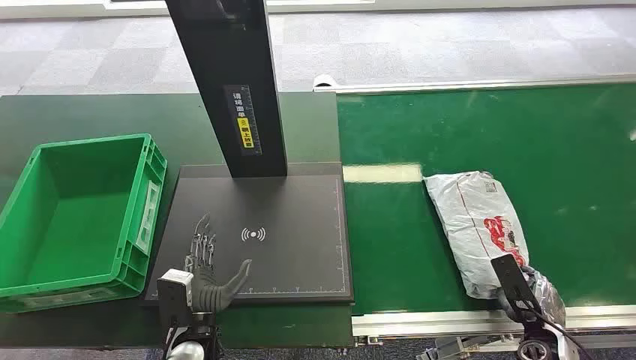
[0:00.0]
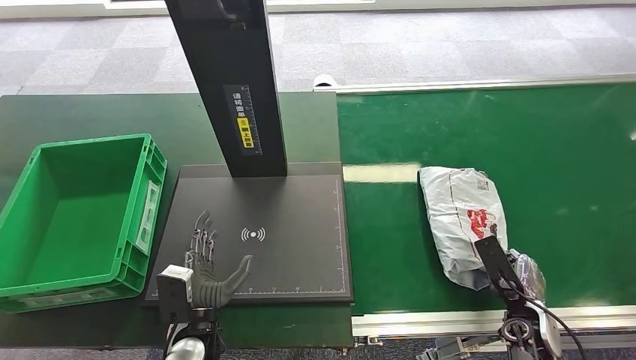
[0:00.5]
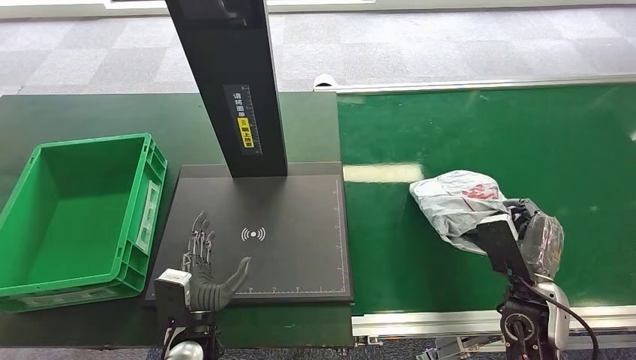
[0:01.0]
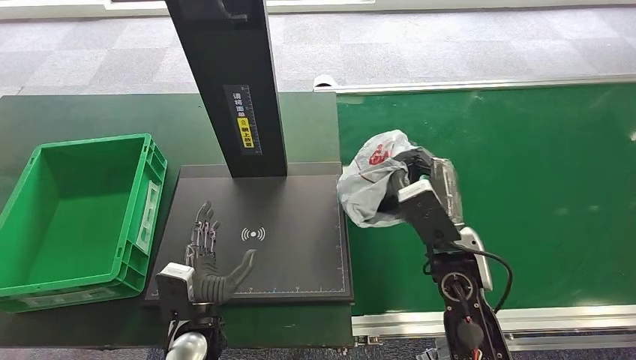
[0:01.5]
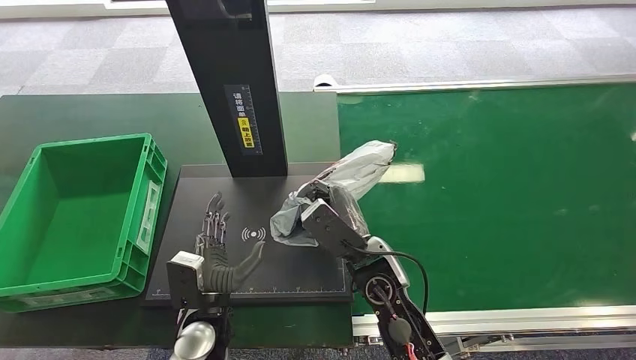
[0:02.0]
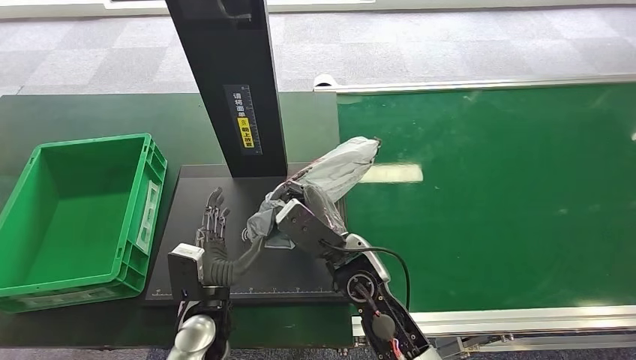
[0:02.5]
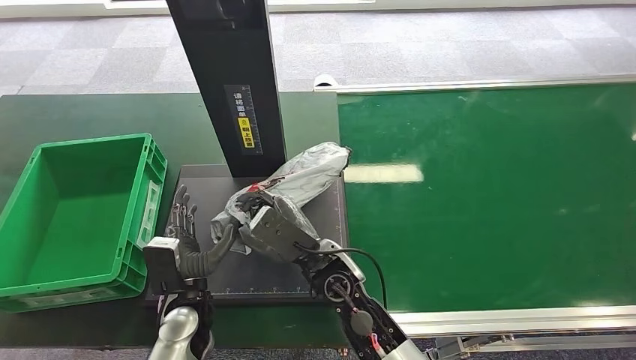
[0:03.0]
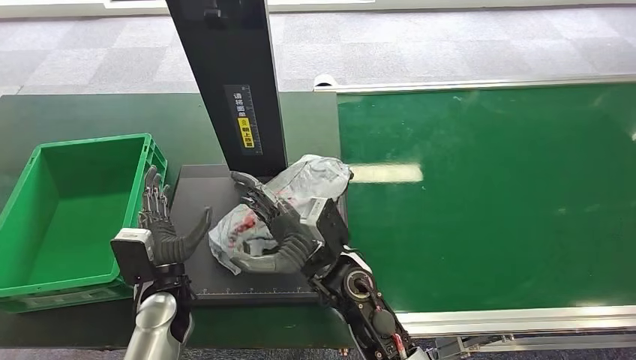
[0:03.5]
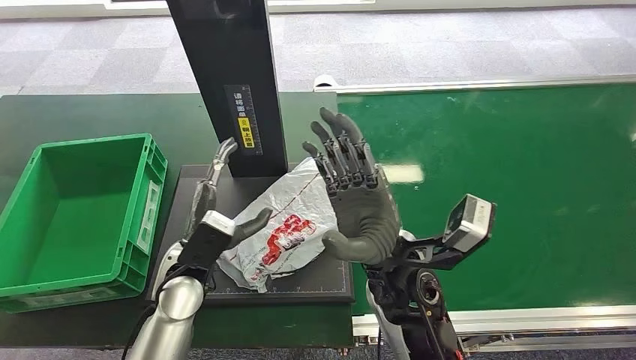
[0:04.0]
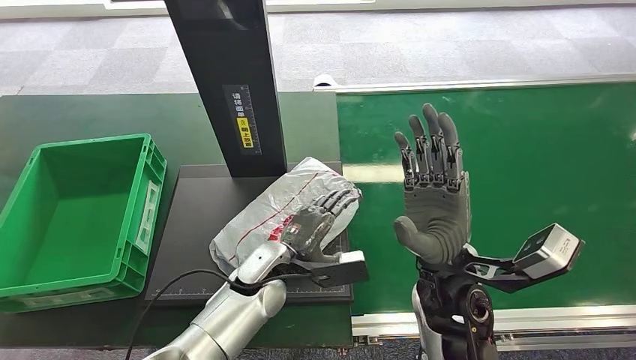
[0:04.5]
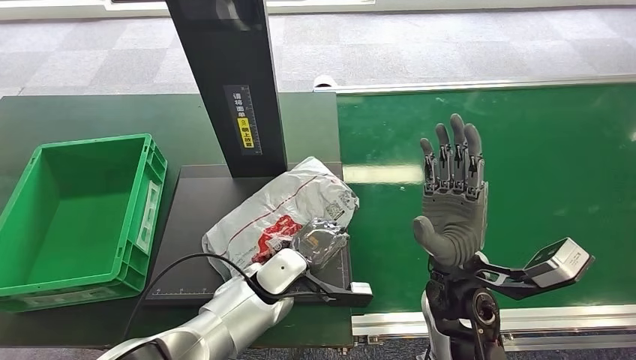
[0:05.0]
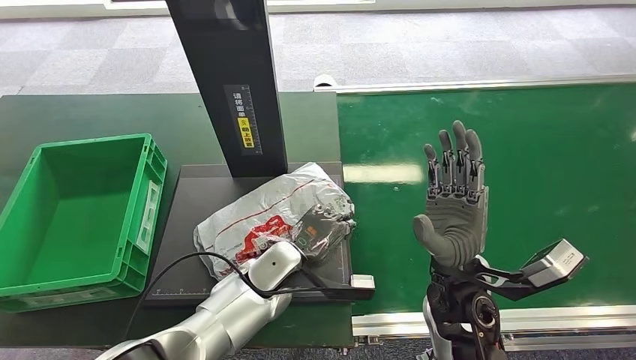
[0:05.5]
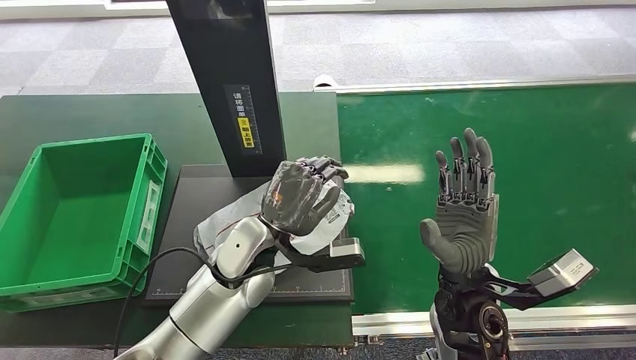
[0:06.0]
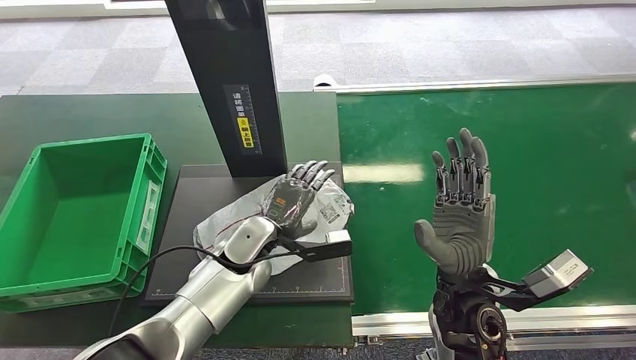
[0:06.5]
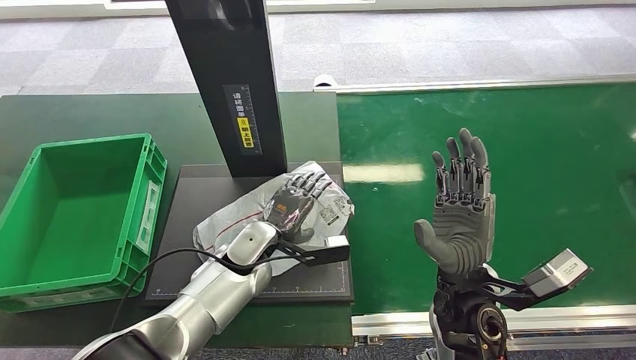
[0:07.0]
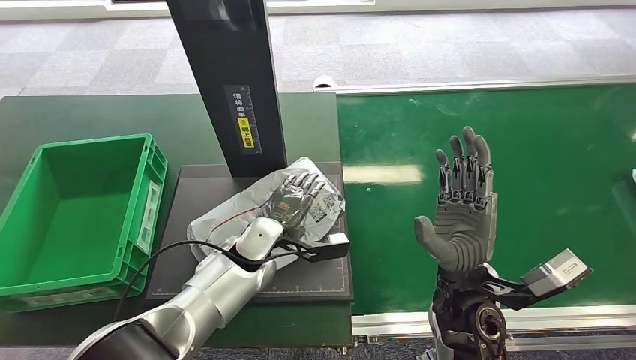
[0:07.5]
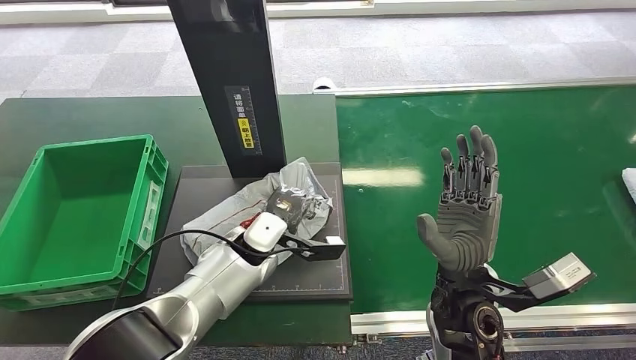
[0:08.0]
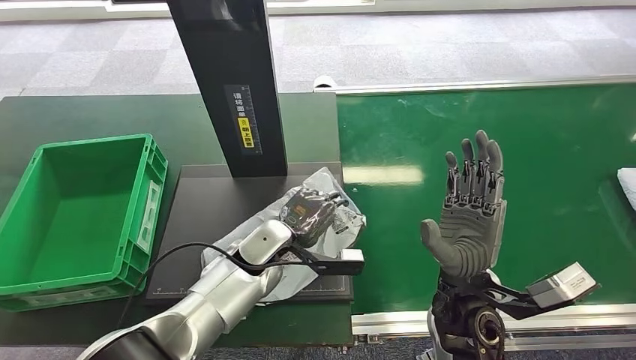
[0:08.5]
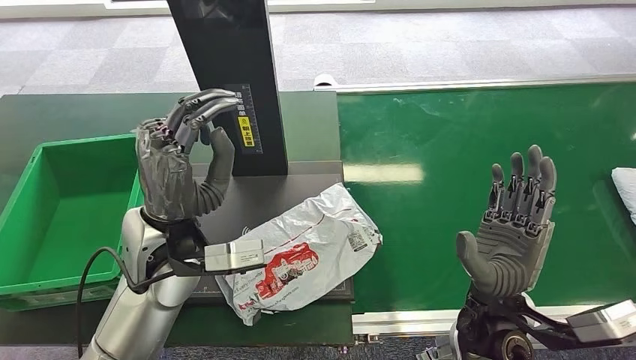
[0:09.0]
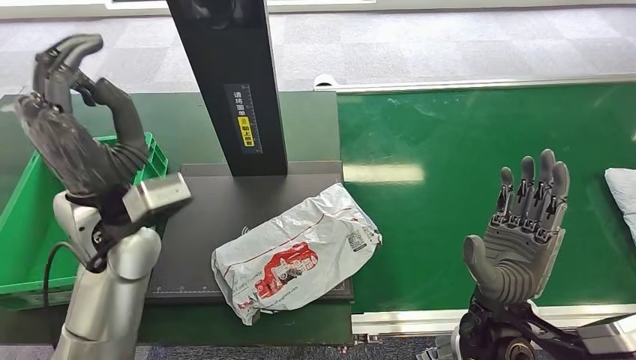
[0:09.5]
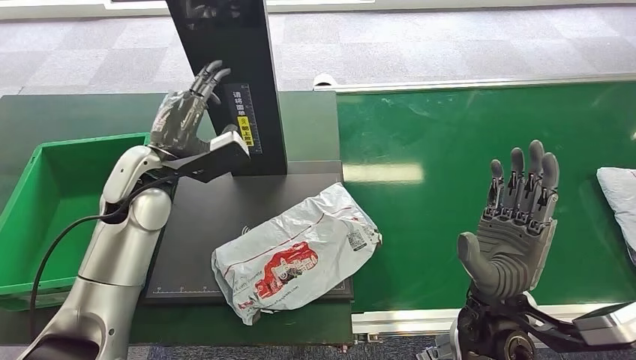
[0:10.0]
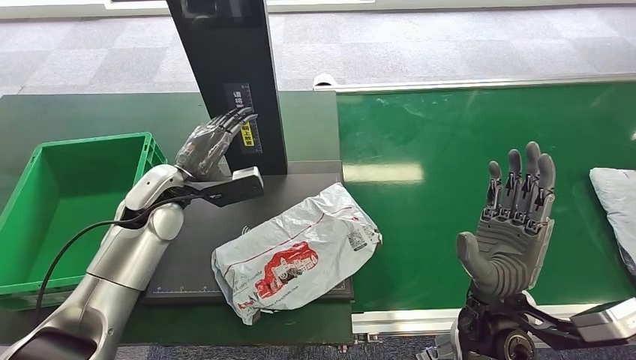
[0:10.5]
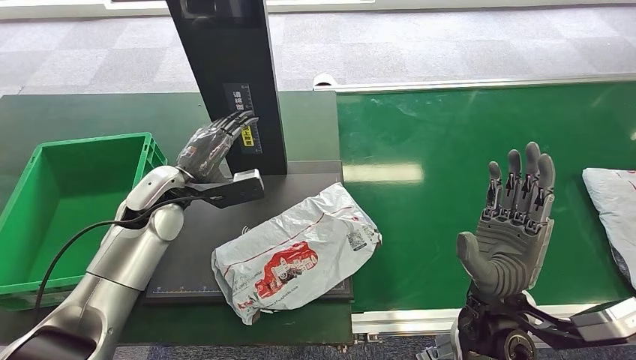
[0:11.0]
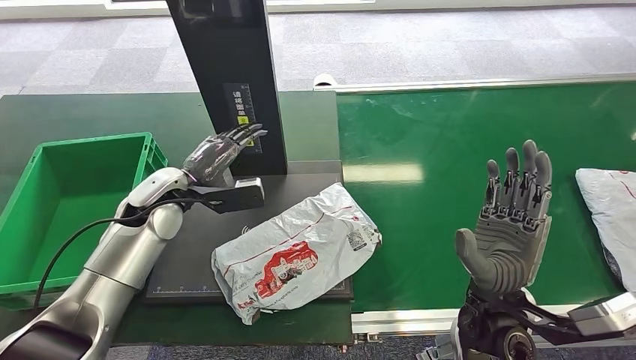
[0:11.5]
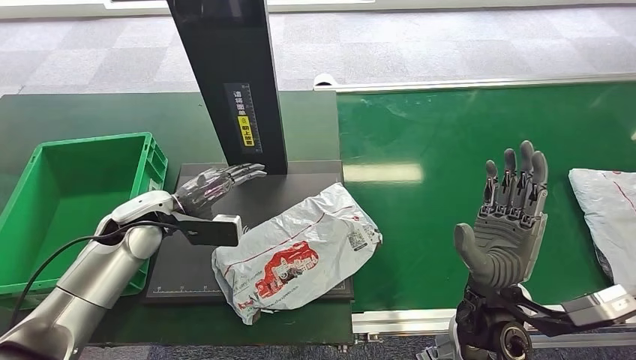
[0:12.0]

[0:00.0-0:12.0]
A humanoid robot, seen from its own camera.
Step, 0:00.0 to 0:01.5: Pick up the package from the conveyor belt.
Step, 0:02.0 to 0:05.0: Place the package onto the inbound machine.
0:02.0 to 0:04.0: The right hand heads upward, covering some 10 cm. Meanwhile the left hand goes approximately 10 cm upward and forward.
0:04.0 to 0:06.0: Both hands move to the right, roughly 10 cm. The left hand reaches approximately 5 cm downward, then returns.
0:06.0 to 0:08.0: The left hand shifts approximately 5 cm downward.
0:10.0 to 0:12.0: The left hand shifts approximately 10 cm downward and to the left.

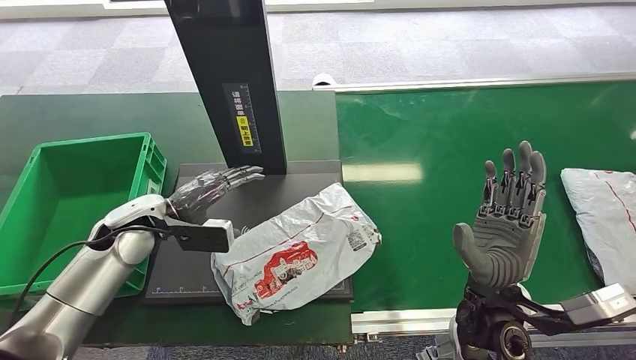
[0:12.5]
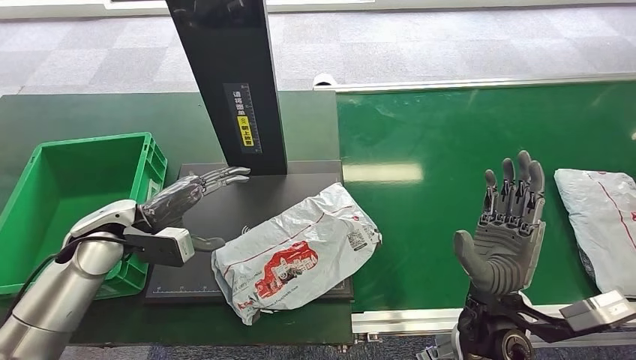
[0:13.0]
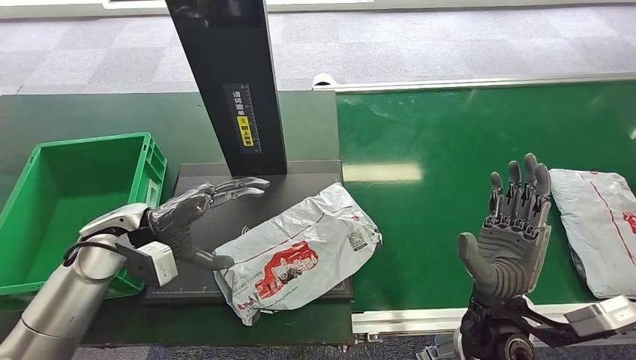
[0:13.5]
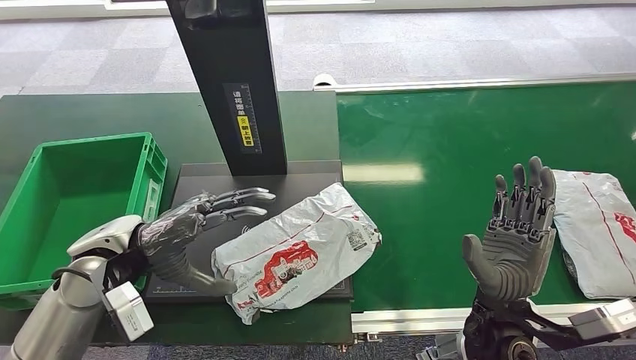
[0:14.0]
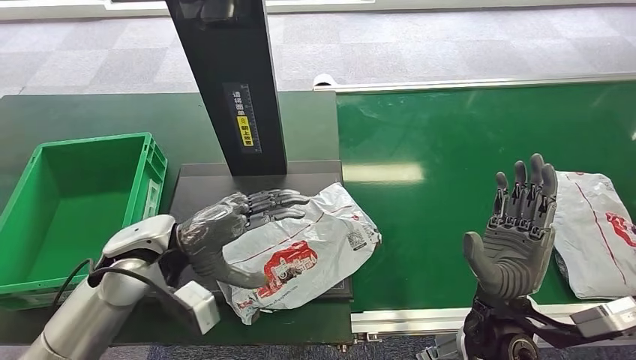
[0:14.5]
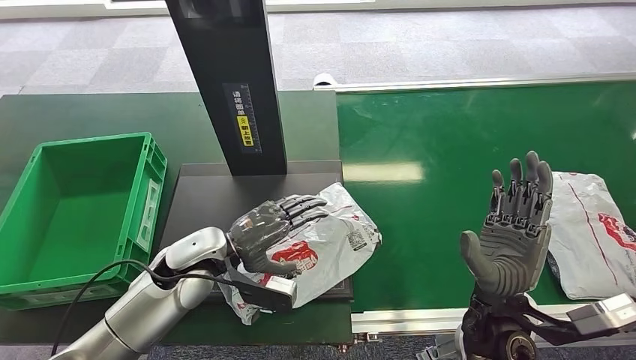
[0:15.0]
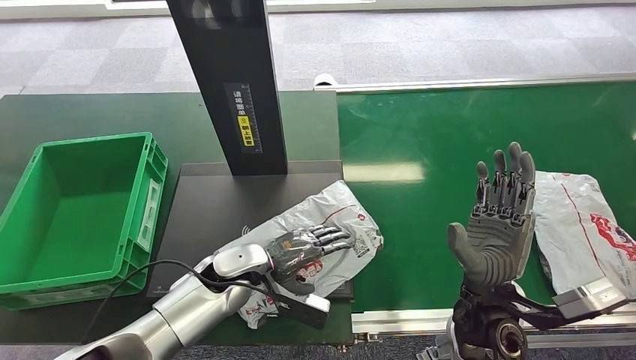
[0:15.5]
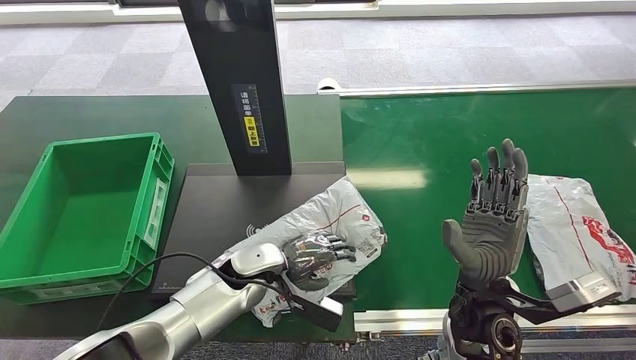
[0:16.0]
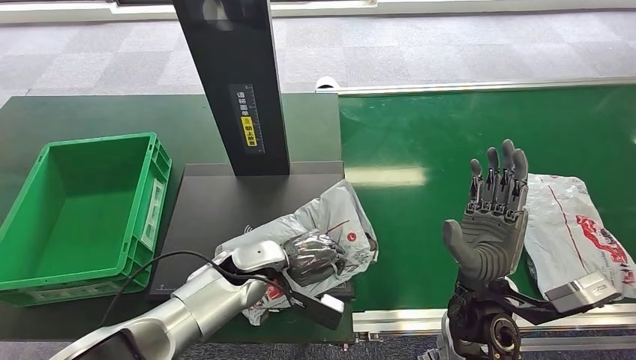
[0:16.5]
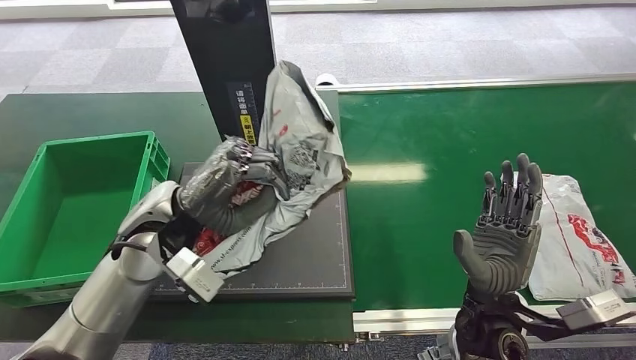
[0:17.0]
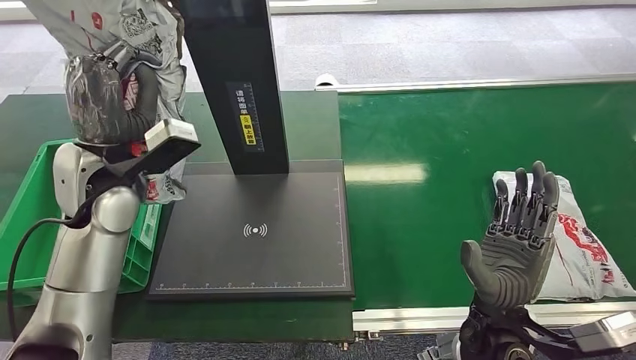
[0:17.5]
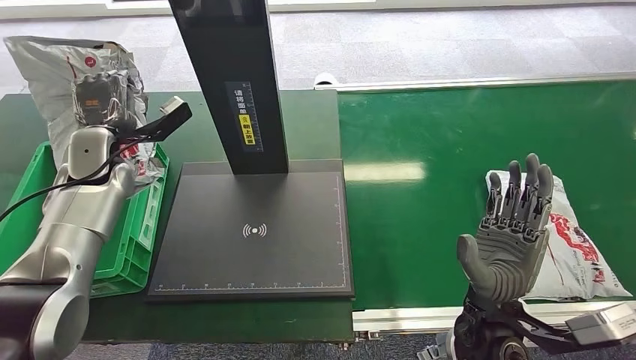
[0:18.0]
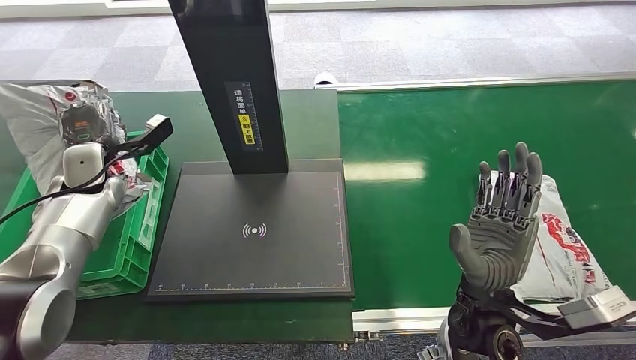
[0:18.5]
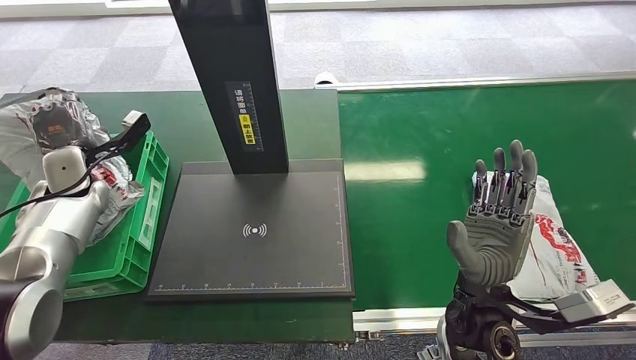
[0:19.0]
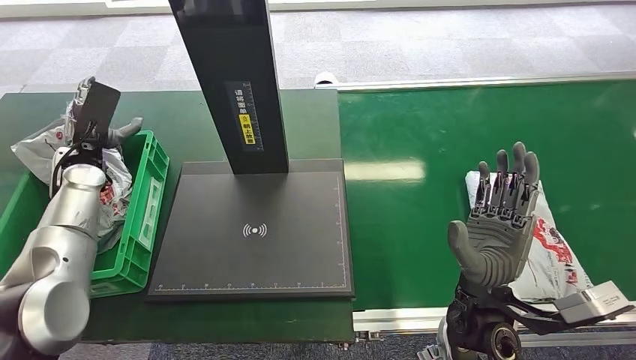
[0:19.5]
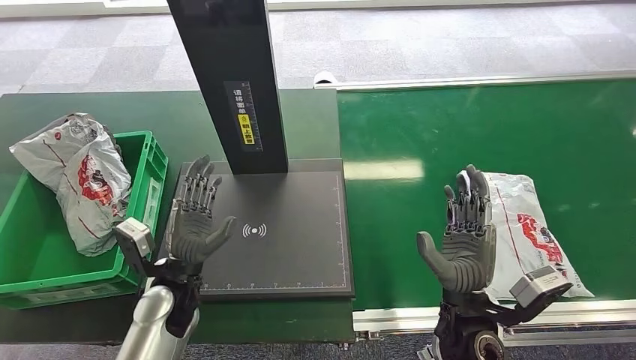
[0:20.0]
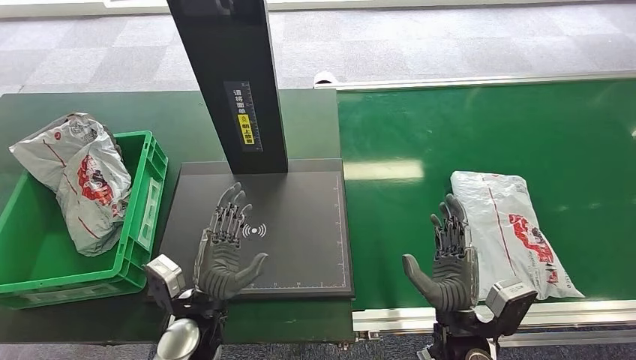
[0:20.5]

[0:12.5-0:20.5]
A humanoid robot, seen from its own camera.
Step, 0:17.0 to 0:17.5: Pick up the package from the inbound machine.
Step, 0:18.0 to 0:20.5: Place the package into the parcel locker.
0:12.5 to 0:14.5: The left hand travels to the right and backward by approximately 10 cm.
